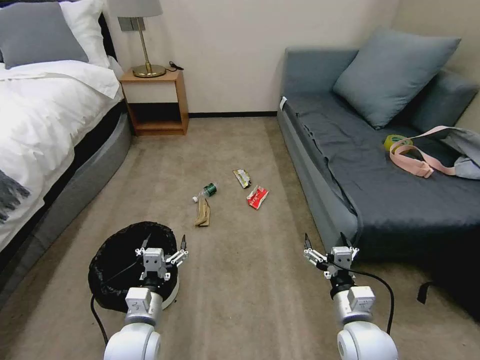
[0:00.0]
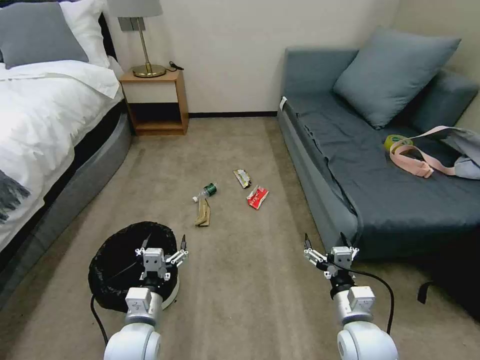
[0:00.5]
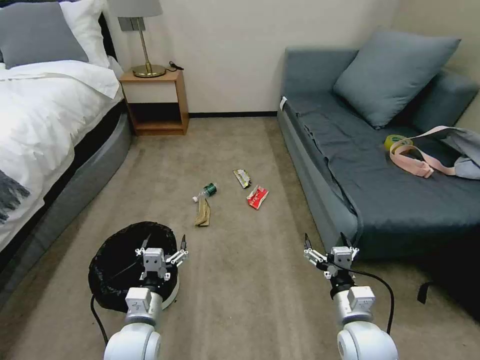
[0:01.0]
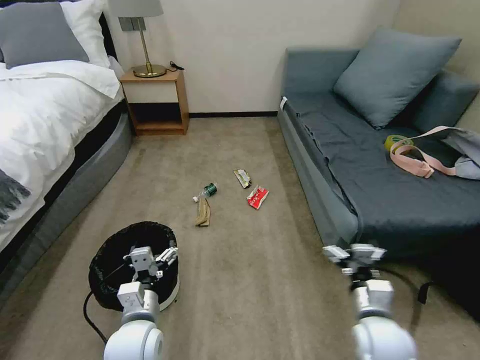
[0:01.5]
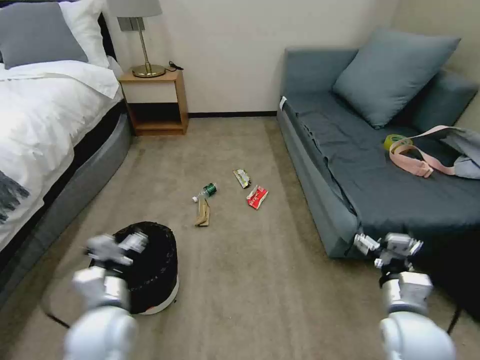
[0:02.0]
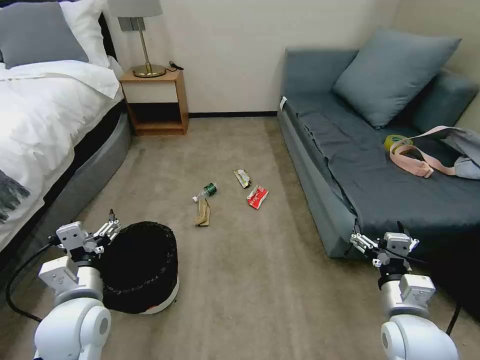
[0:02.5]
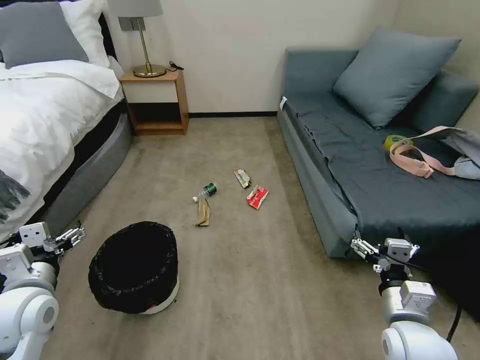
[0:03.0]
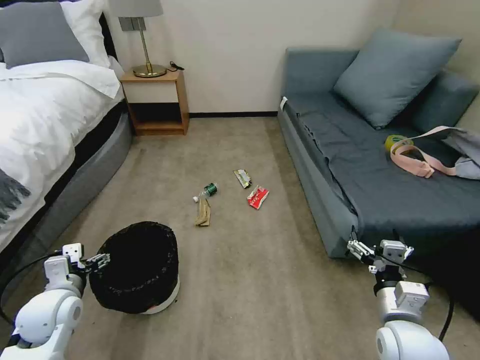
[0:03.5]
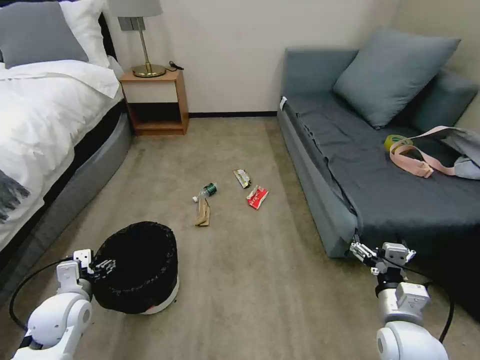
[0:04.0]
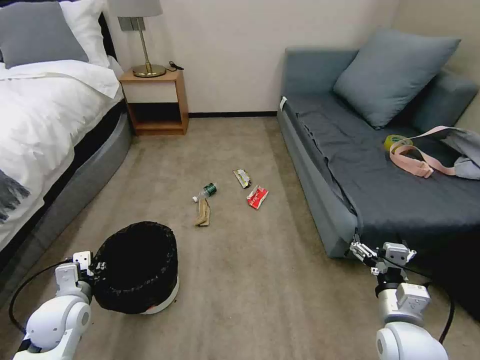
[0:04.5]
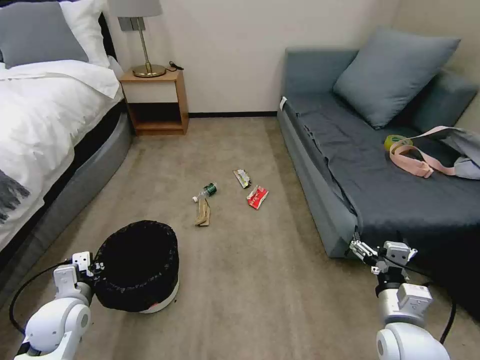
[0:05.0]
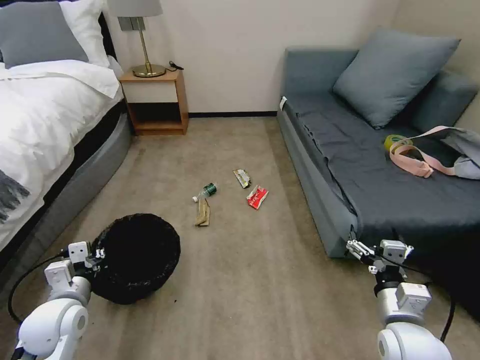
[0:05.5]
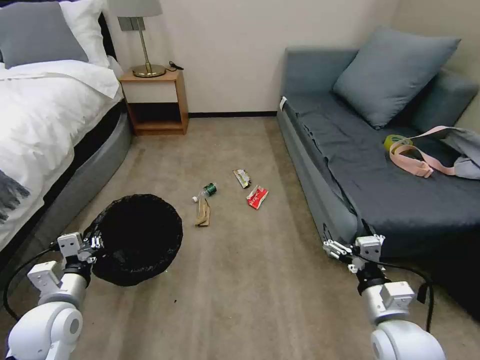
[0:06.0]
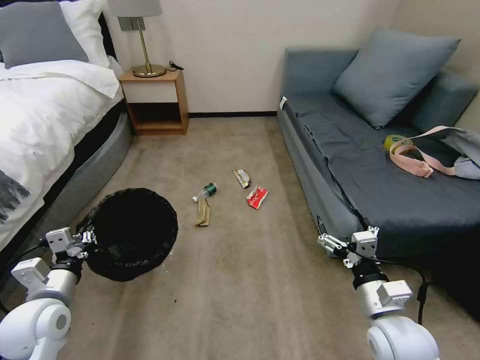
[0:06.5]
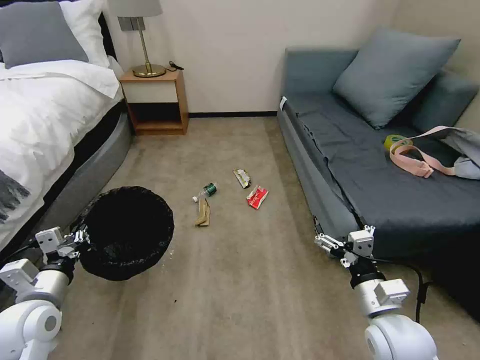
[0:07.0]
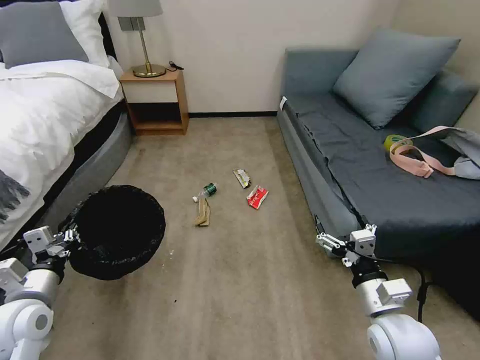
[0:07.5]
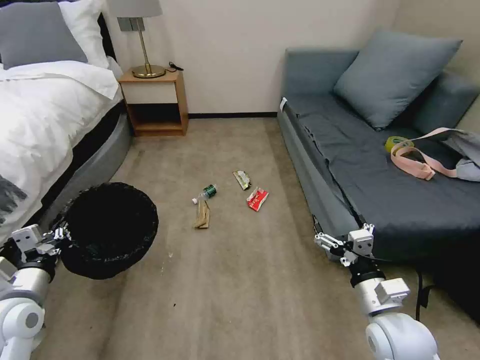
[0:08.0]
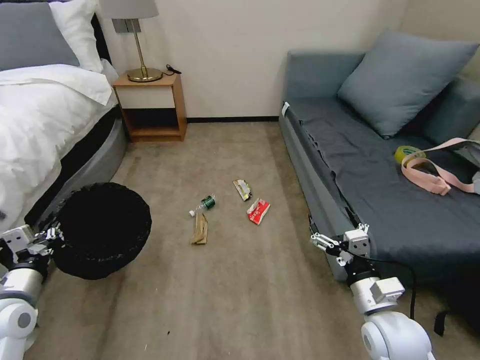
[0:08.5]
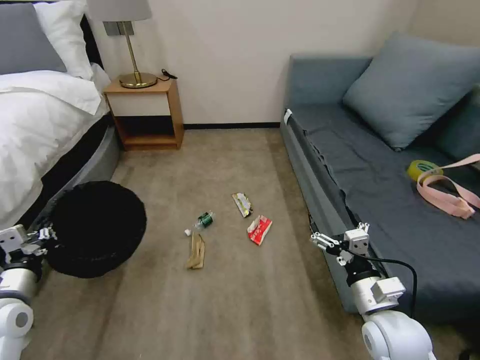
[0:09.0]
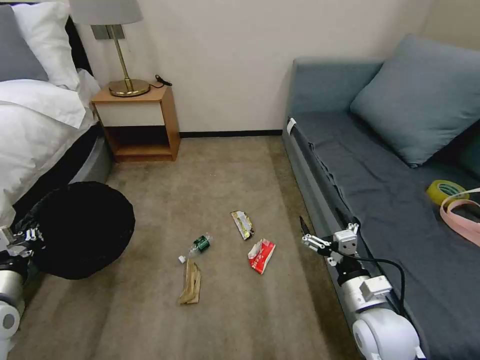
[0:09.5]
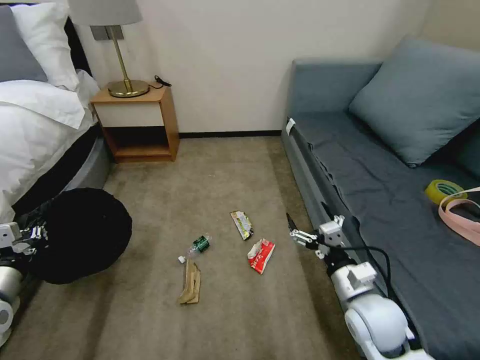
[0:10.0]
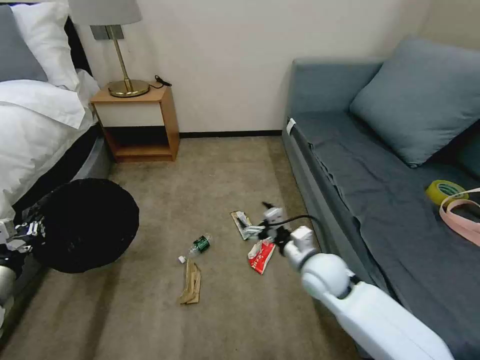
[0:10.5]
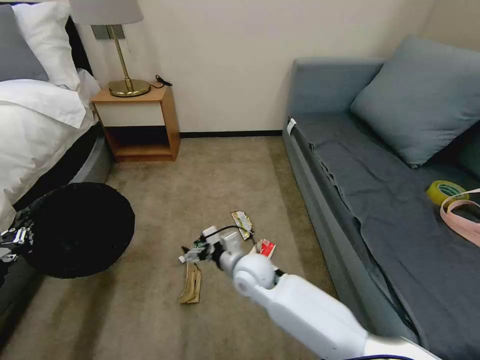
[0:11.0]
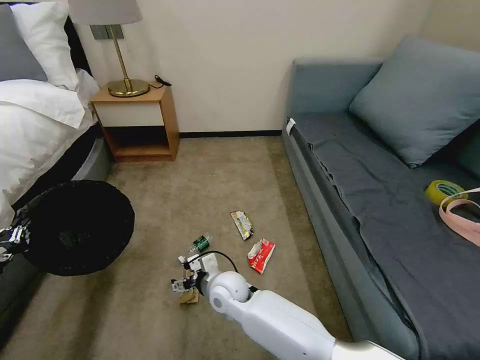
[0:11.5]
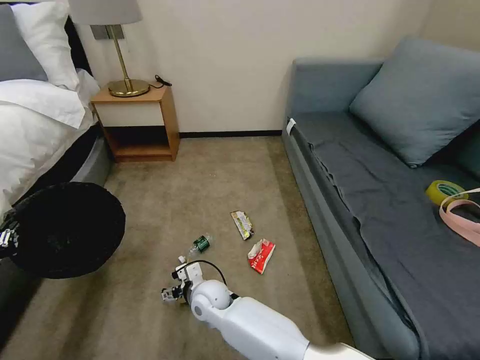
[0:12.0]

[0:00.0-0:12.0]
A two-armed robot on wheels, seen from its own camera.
Task of the whole recording: Pick up the trash bin, then pick up the garbage on the floor and place it into the trash bin.
0:02.0 to 0:04.0: The left gripper travels to the left by approximately 10 cm.
0:04.0 to 0:06.0: The left gripper moves some 5 cm, and closes.
0:06.0 to 0:08.0: The left gripper moves to the left, about 5 cm.
0:08.0 to 0:10.0: The left gripper goes approximately 5 cm to the left.
0:10.0 to 0:12.0: The right gripper moves to the left, approximately 35 cm. The left gripper moves to the left, roughly 5 cm.

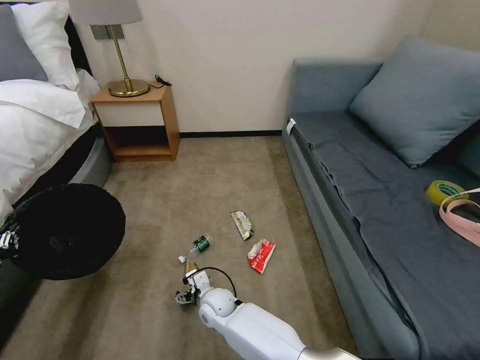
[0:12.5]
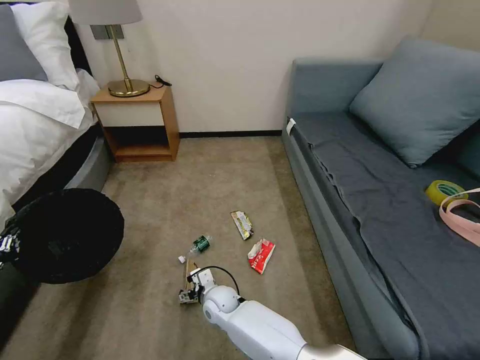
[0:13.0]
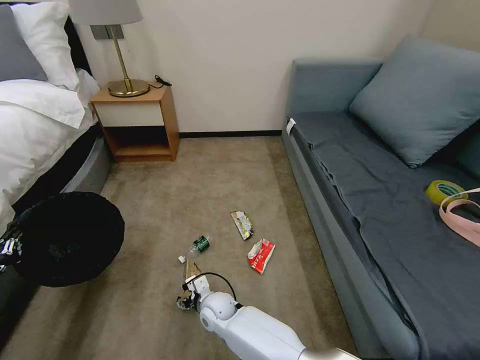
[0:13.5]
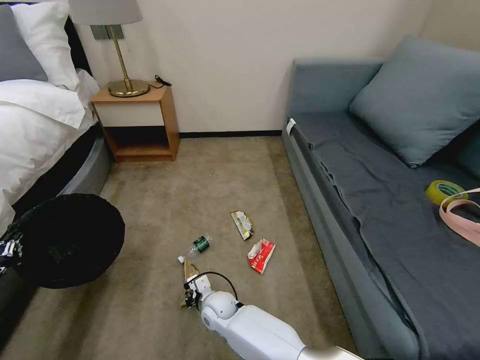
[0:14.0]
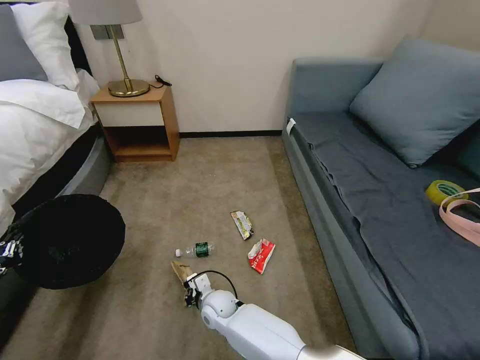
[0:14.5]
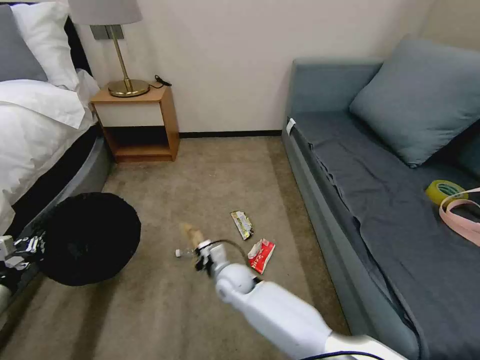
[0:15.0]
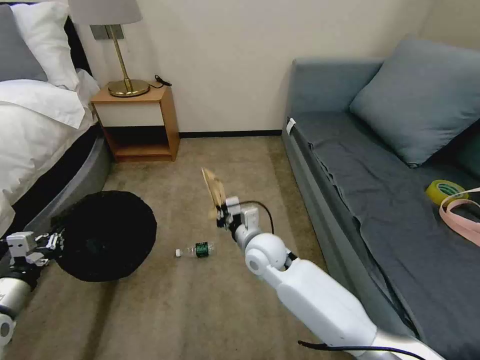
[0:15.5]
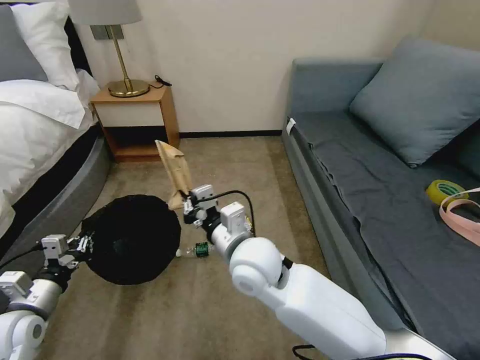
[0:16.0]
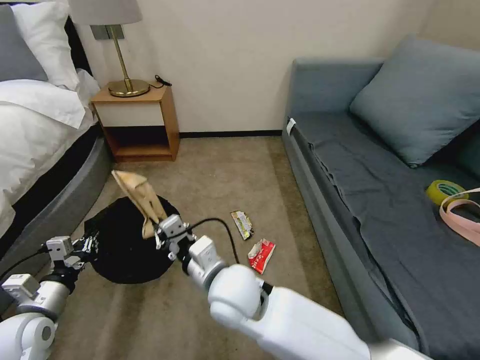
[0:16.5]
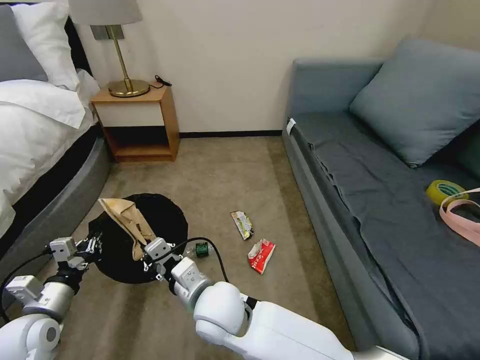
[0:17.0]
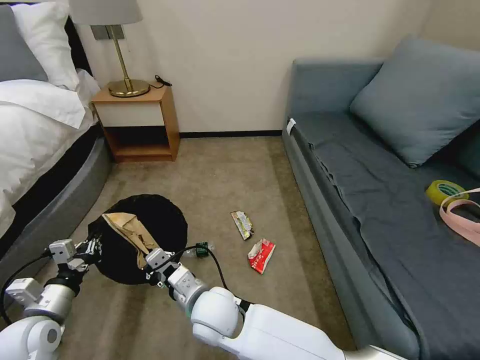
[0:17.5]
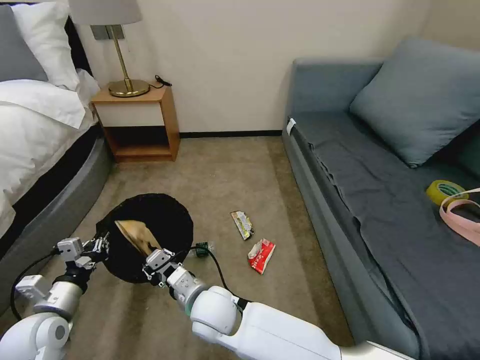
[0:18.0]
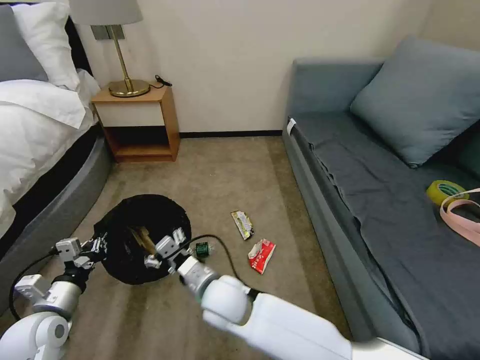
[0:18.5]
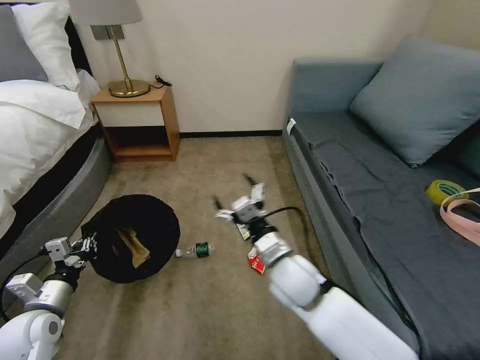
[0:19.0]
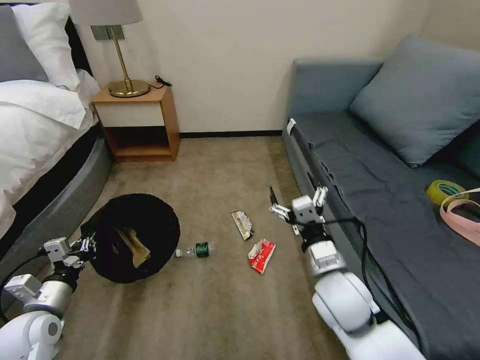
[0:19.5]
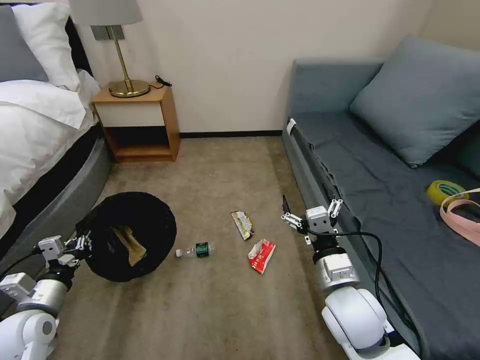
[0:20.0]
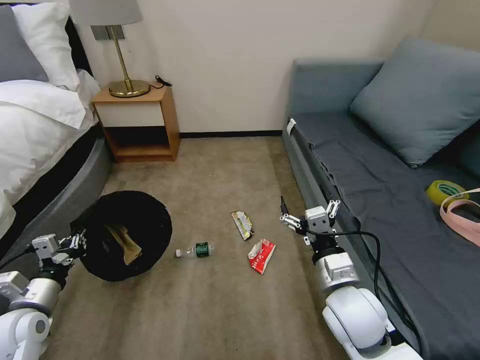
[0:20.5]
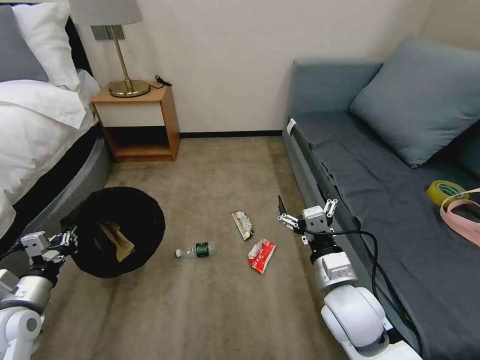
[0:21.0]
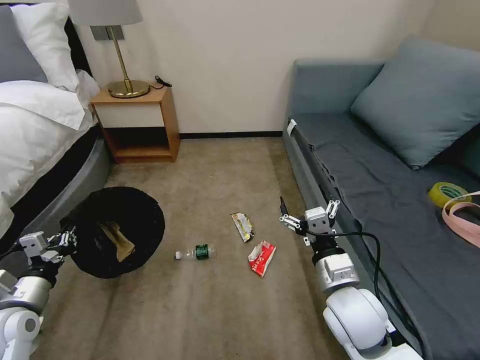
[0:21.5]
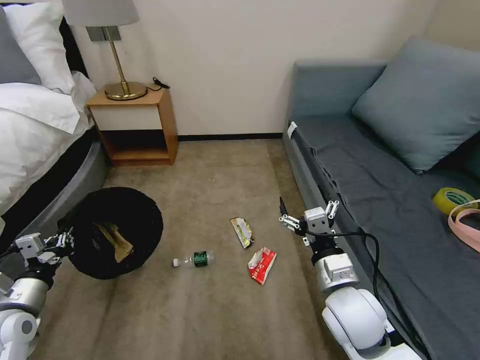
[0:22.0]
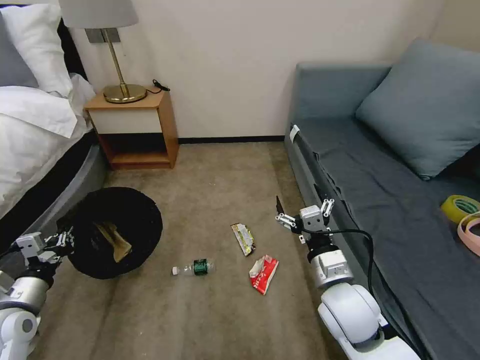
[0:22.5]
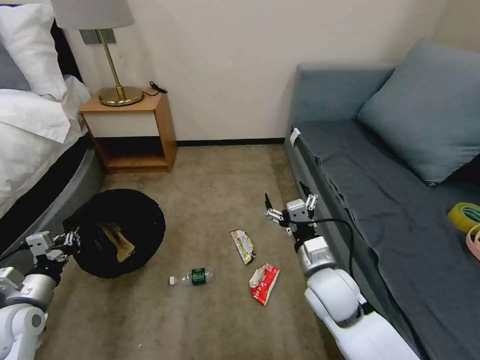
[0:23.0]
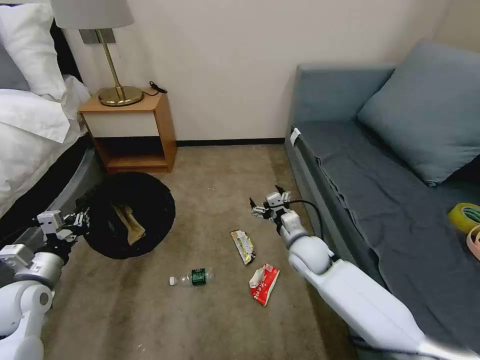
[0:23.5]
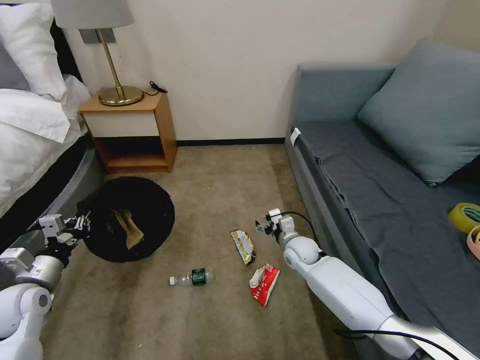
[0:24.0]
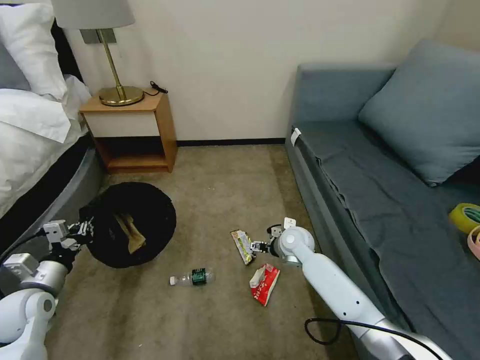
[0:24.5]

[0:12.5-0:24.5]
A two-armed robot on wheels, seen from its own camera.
Task of the whole recording: Pick up the trash bin, then pick up the garbage on the floor and place it into the trash bin.
0:12.5 to 0:14.5: The right gripper closes its fingers.
0:14.5 to 0:16.5: The right gripper shifts about 25 cm upward; the left gripper is displaced to the right by some 15 cm.
0:16.5 to 0:18.5: The right gripper travels downward by some 5 cm, and opens its fingers.
0:18.5 to 0:20.5: The right gripper moves to the right, approximately 25 cm.
0:22.5 to 0:24.5: The right gripper travels forward and downward by roughly 25 cm.

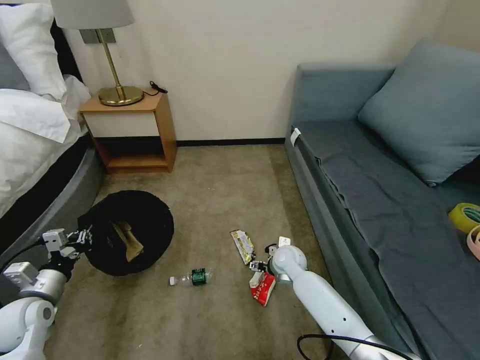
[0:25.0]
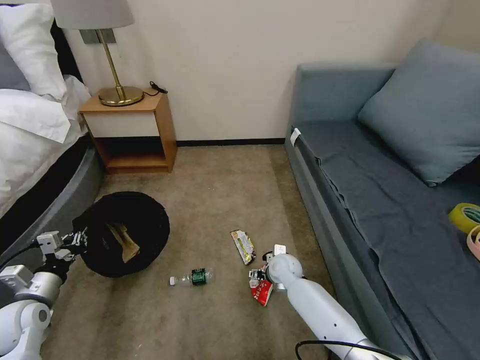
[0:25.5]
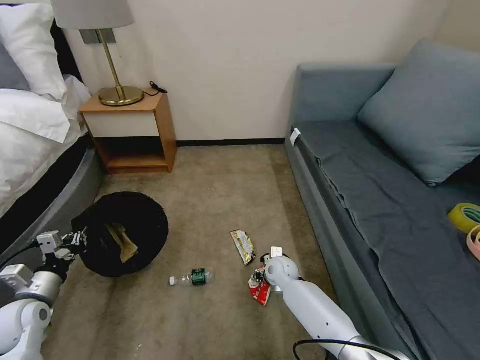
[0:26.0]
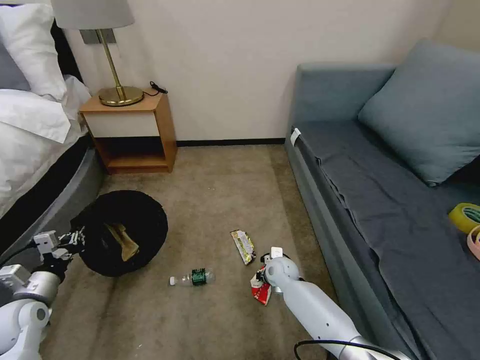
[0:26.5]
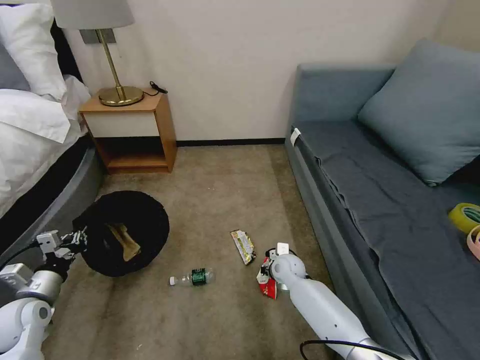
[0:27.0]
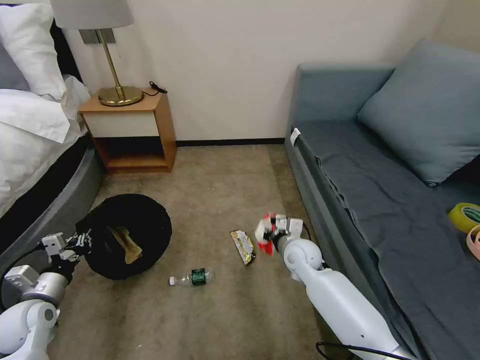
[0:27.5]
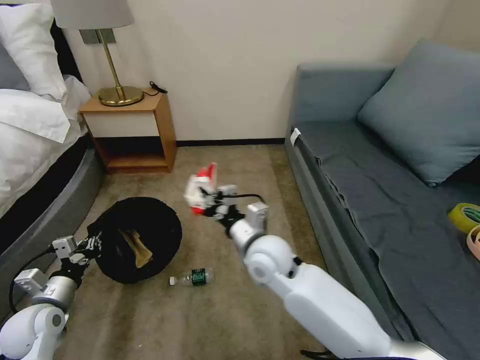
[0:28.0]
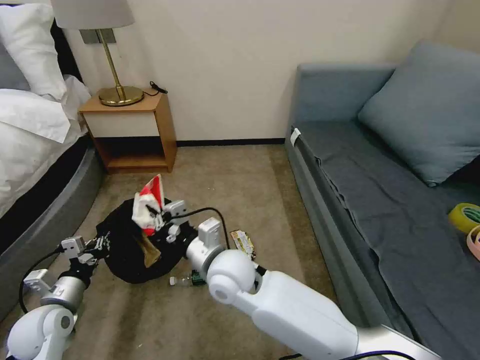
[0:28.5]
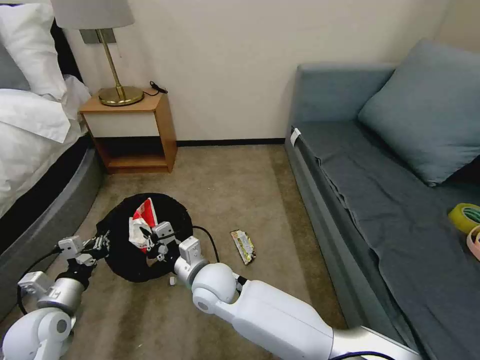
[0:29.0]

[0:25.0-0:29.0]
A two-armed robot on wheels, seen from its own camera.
Task of the whole recording: Pick up the trash bin, then pick up the garbage on the floor and place it into the trash bin.
0:25.0 to 0:27.0: The right gripper closes.
0:27.0 to 0:29.0: The left gripper moves to the right, approximately 5 cm. Meanwhile the right gripper is displaced to the left, upward and backward by some 30 cm.
